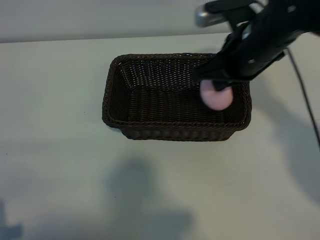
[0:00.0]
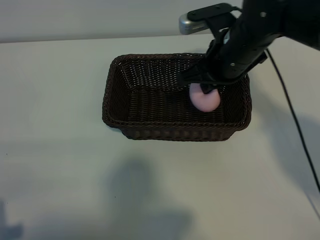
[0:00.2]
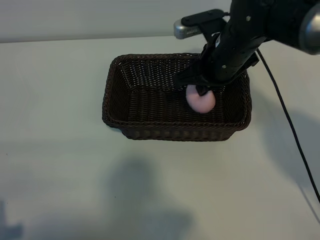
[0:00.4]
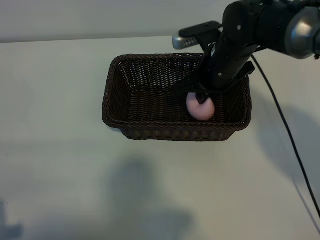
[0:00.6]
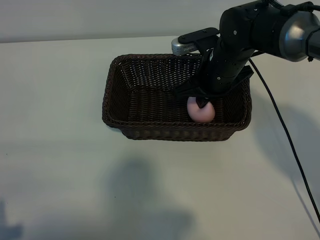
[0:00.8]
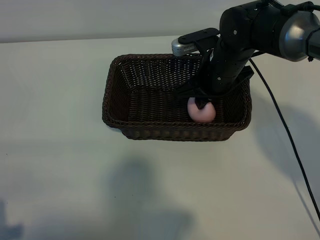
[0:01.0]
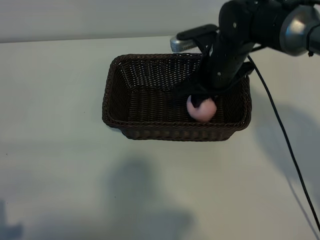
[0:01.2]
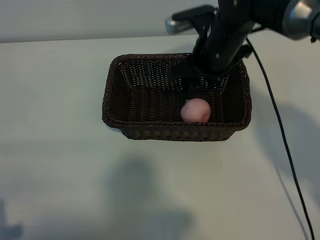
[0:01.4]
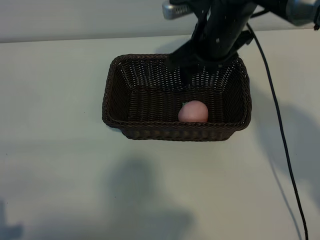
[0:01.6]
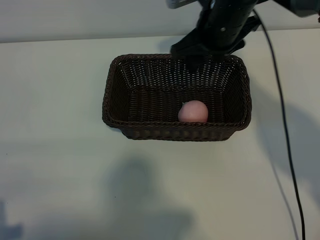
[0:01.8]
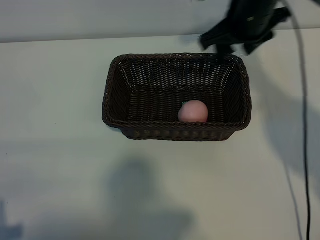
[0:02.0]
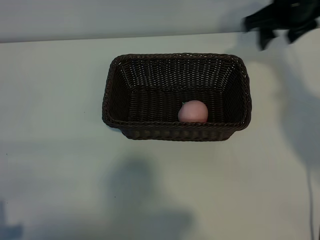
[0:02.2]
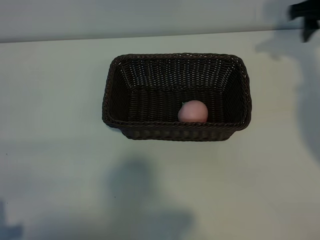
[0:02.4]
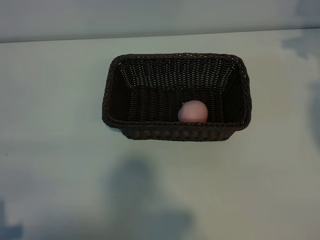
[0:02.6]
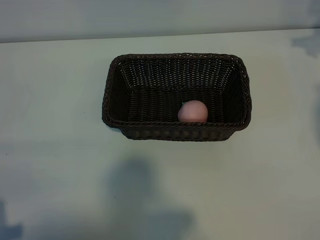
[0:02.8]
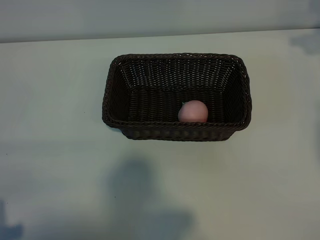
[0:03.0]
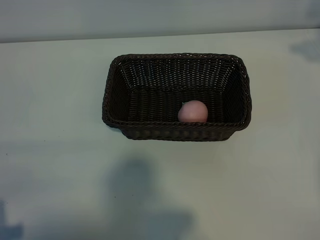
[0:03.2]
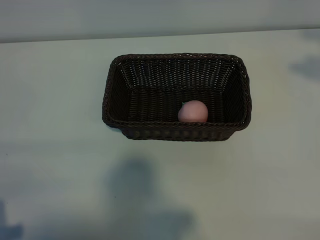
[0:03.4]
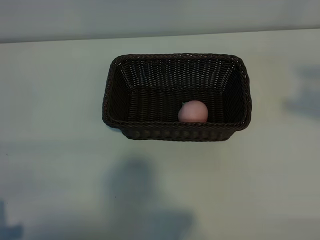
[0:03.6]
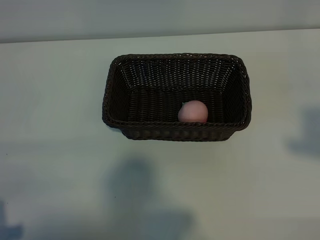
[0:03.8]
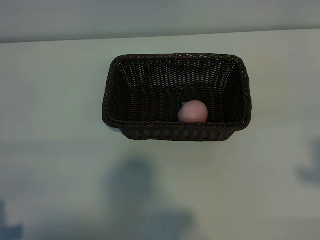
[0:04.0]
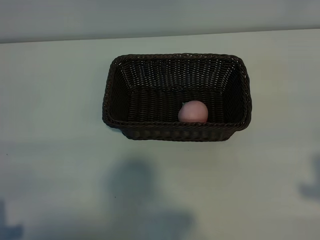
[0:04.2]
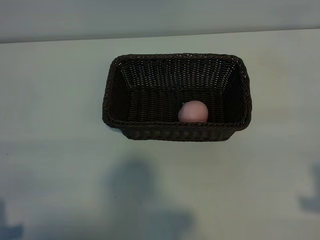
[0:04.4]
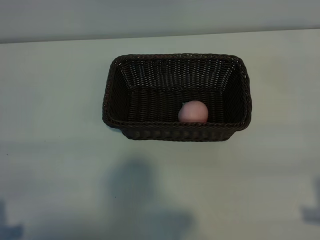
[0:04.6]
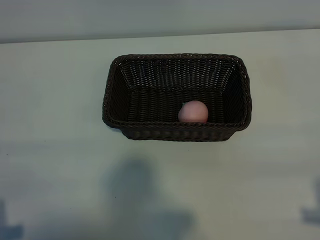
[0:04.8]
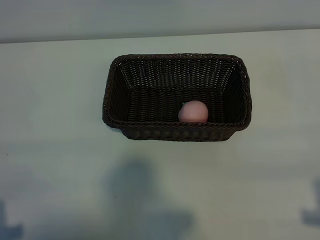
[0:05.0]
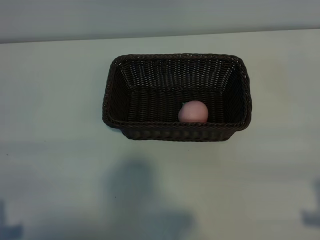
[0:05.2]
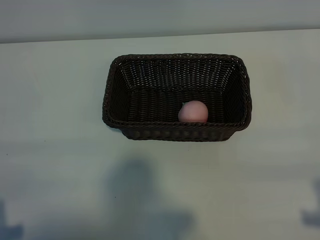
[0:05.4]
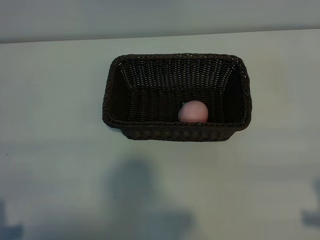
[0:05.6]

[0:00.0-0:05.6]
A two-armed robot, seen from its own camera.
Task of the whole recording: pick up the peach and put it into the basket.
Step, 0:00.0 to 0:01.2: Place the peach in the basket with right gripper.
